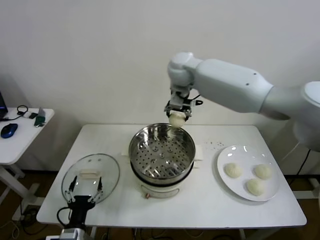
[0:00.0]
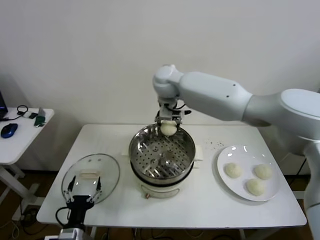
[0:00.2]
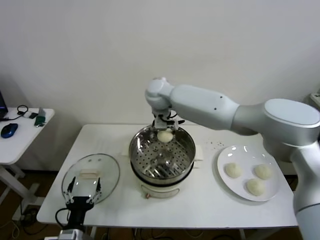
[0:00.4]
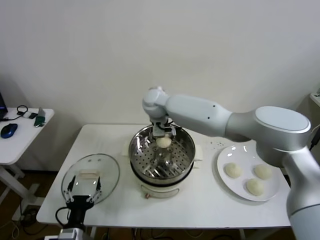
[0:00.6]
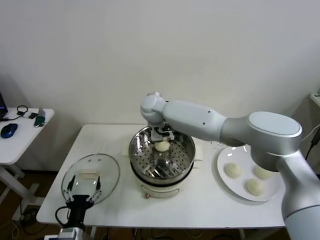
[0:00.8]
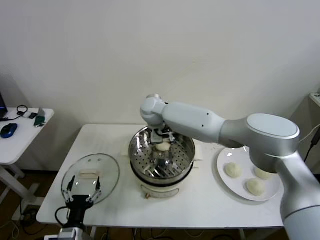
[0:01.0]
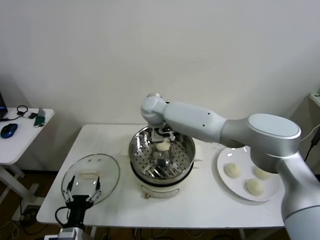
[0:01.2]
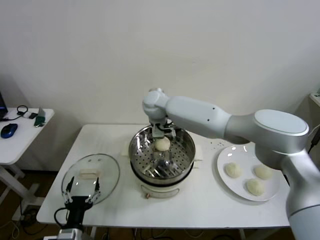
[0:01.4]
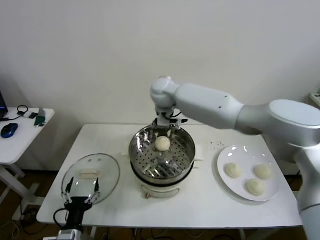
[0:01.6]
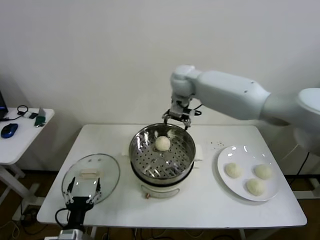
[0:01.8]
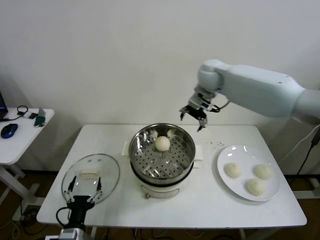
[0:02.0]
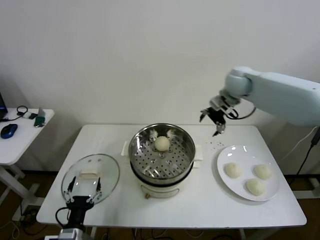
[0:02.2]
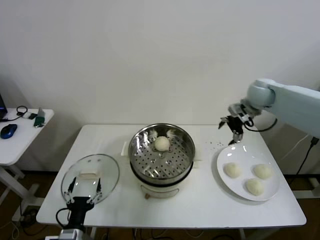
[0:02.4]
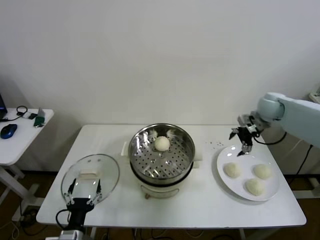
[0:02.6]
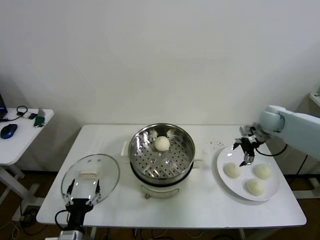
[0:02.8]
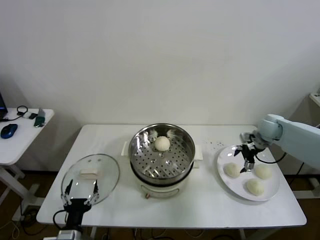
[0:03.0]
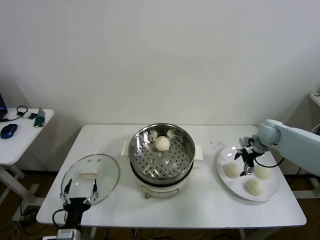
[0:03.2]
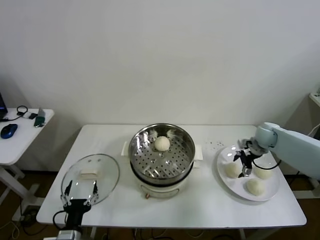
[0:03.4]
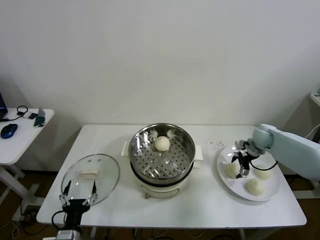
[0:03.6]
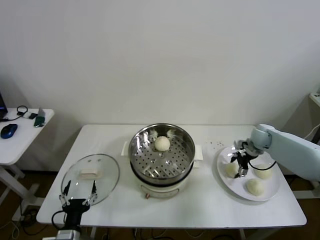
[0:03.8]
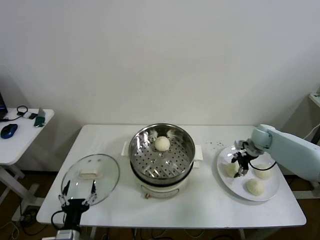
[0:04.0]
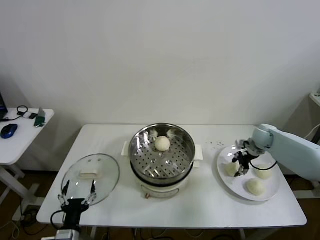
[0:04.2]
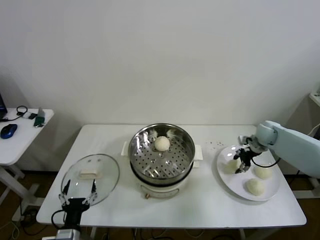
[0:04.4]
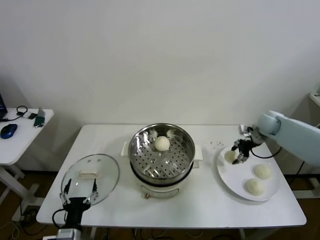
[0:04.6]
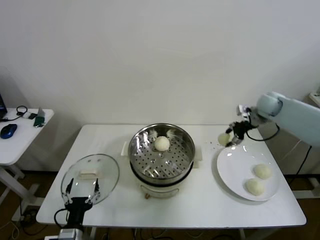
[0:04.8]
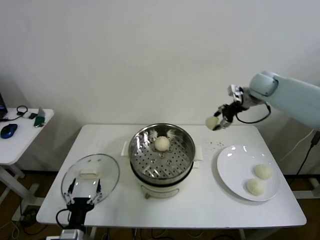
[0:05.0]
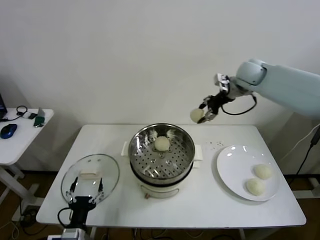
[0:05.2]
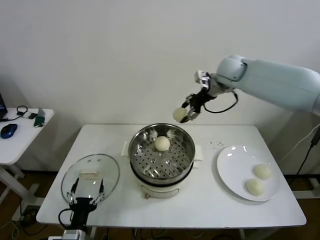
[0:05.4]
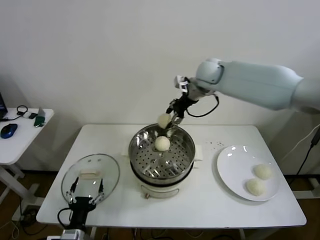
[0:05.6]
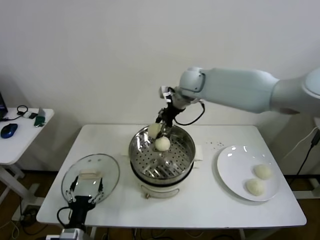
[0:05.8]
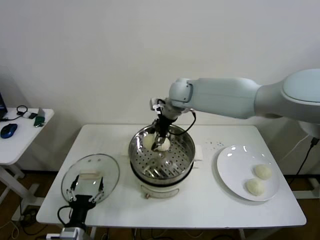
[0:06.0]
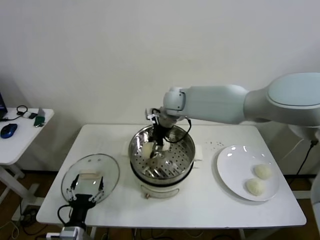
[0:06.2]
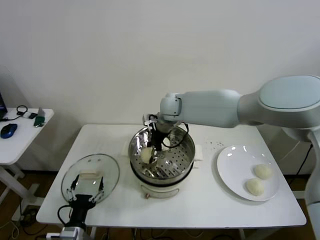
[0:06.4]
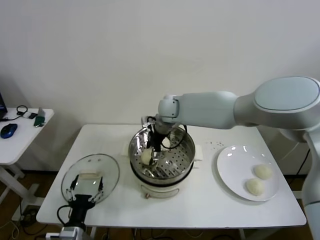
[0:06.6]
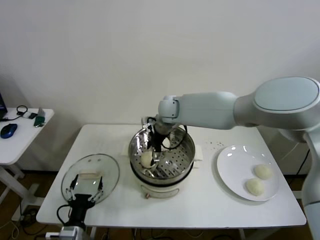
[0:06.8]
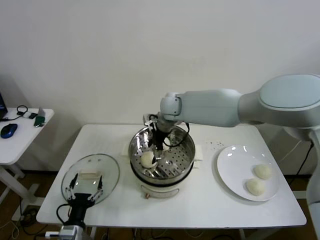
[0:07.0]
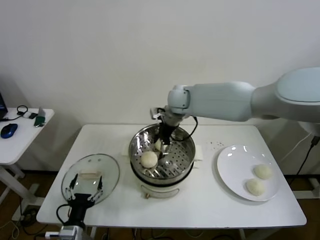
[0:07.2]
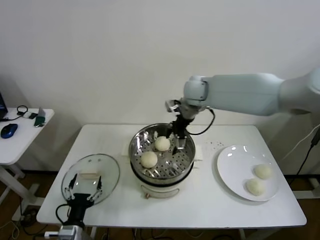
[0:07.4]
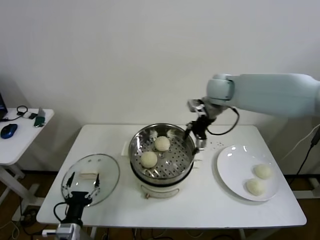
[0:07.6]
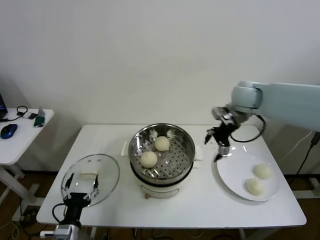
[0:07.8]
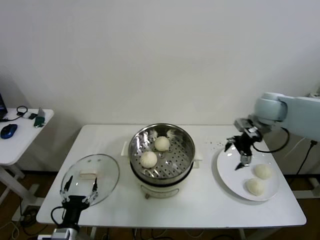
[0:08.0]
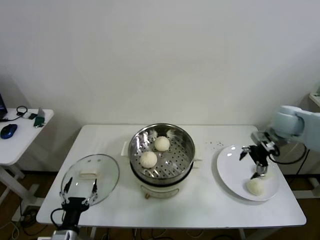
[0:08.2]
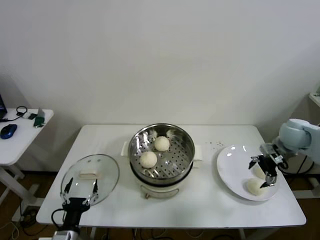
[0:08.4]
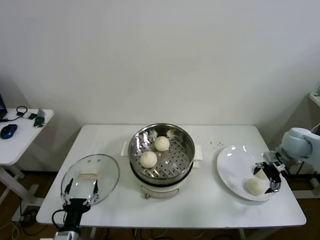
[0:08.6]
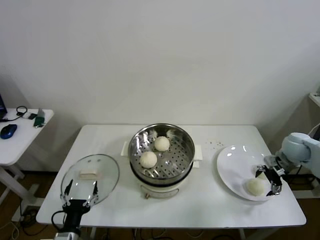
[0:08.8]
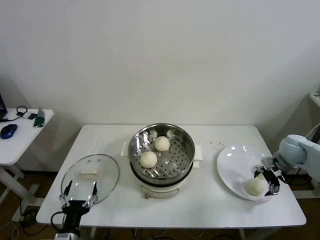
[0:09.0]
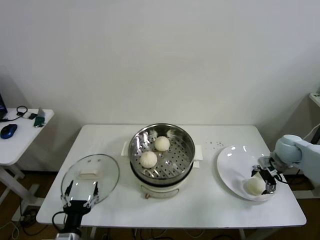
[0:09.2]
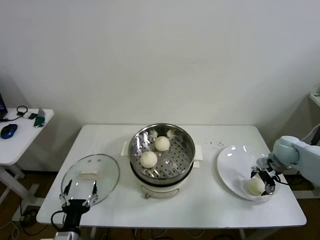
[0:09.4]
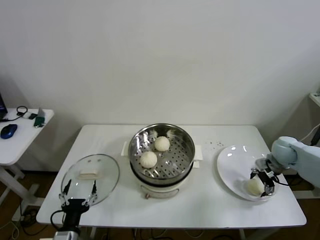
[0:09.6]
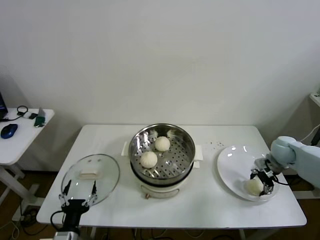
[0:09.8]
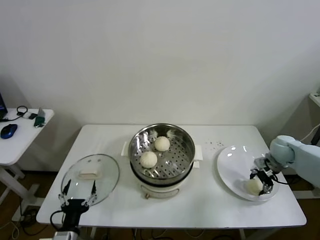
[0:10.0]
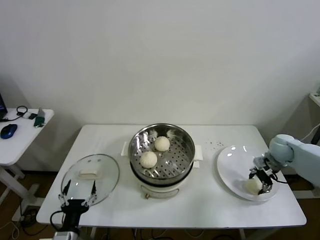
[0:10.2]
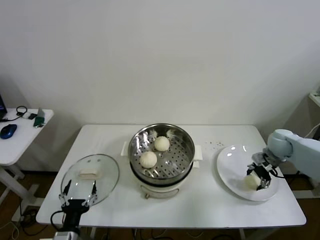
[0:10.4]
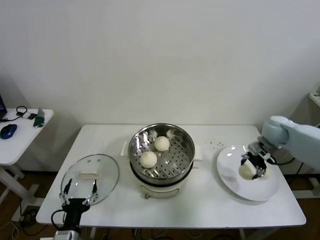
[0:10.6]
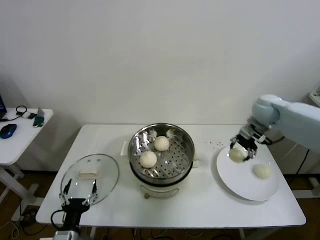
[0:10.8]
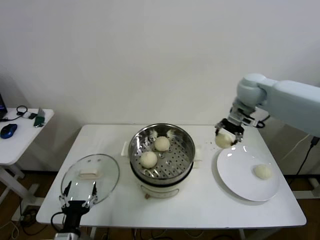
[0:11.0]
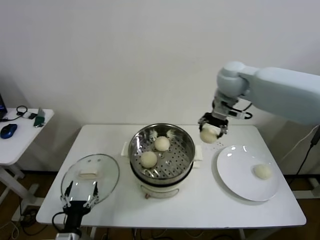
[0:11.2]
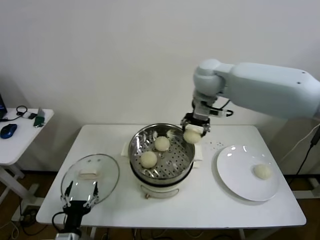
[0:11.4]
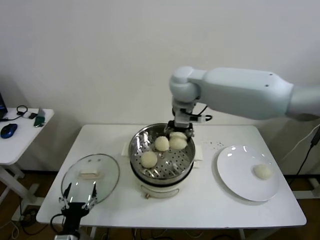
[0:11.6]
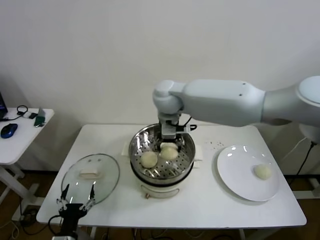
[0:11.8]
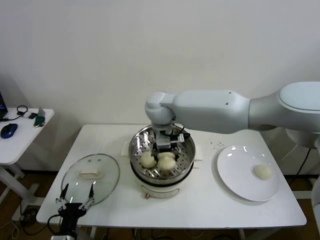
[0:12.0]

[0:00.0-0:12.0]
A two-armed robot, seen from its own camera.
Step, 0:01.2 to 0:04.2: Grasp the baozi in the plate with right gripper.
Step, 0:04.4 to 0:06.8: Place the baozi on the steamer with right gripper.
Step, 0:07.0 to 0:10.2: Grasp the baozi in the plate with right gripper.
0:00.0 to 0:01.6: The right gripper goes approximately 5 cm downward, and opens its fingers.
0:01.6 to 0:03.0: The right gripper shifts roughly 40 cm to the right.
0:03.0 to 0:04.4: The right gripper closes.
0:04.4 to 0:06.0: The right gripper goes approximately 40 cm to the left and upward.
0:06.0 to 0:07.6: The right gripper is displaced to the right by approximately 15 cm, and opens its fingers.
0:07.6 to 0:09.0: The right gripper travels to the right and downward by roughly 35 cm.
0:09.0 to 0:10.4: The right gripper closes.
0:10.4 to 0:12.0: The right gripper travels to the left by roughly 40 cm.

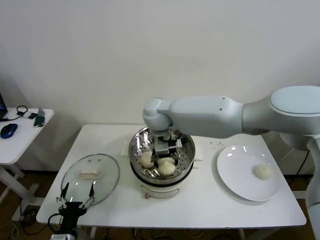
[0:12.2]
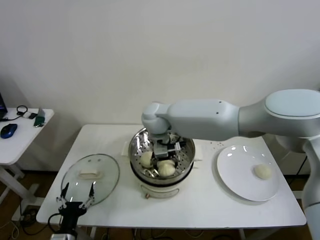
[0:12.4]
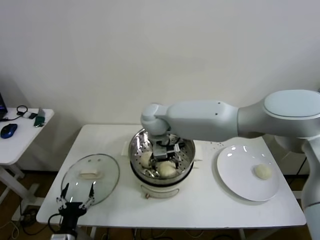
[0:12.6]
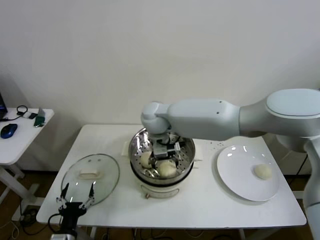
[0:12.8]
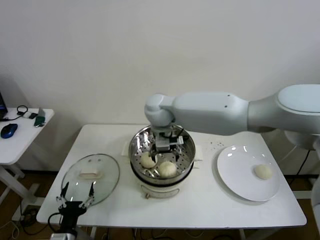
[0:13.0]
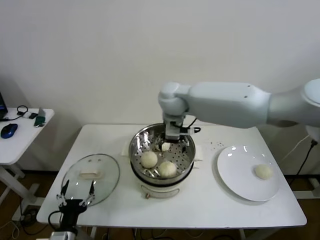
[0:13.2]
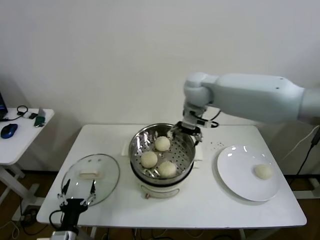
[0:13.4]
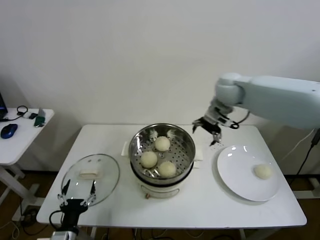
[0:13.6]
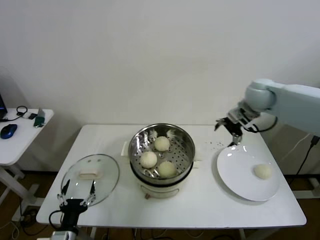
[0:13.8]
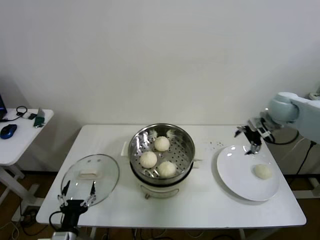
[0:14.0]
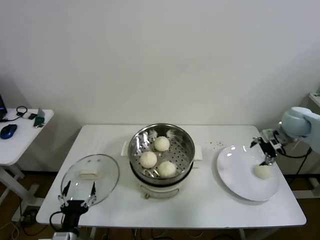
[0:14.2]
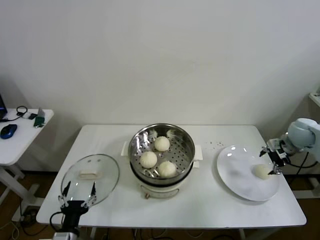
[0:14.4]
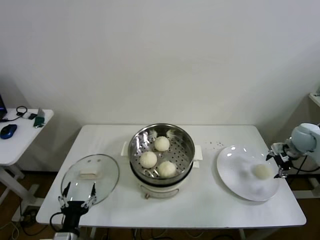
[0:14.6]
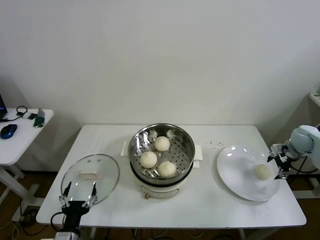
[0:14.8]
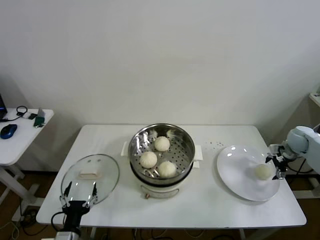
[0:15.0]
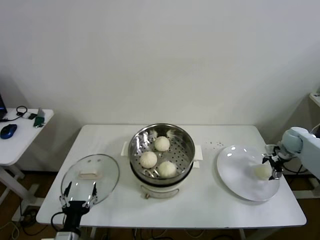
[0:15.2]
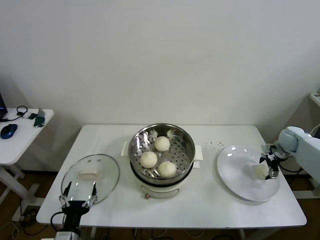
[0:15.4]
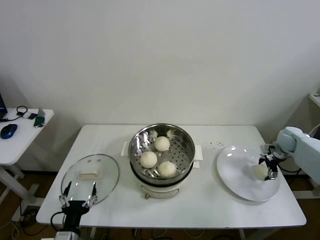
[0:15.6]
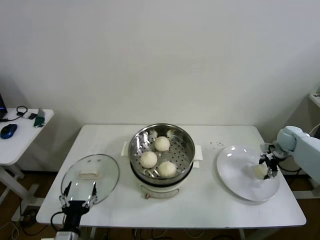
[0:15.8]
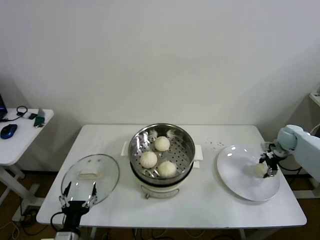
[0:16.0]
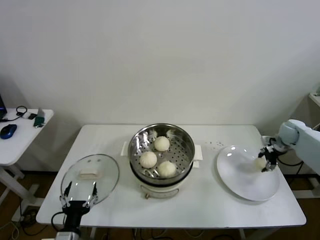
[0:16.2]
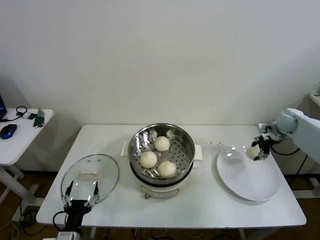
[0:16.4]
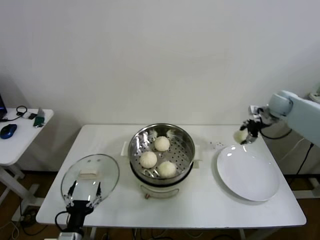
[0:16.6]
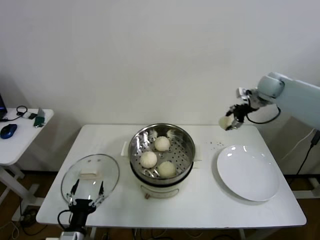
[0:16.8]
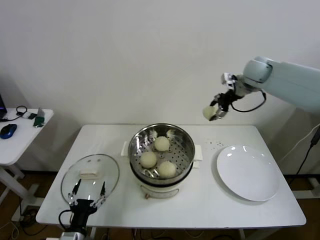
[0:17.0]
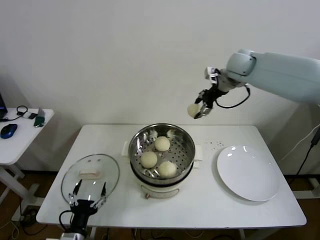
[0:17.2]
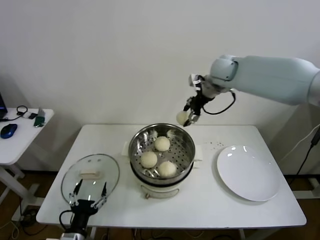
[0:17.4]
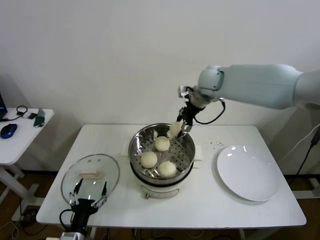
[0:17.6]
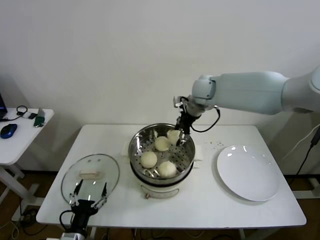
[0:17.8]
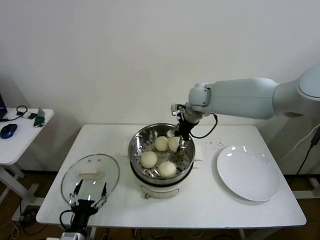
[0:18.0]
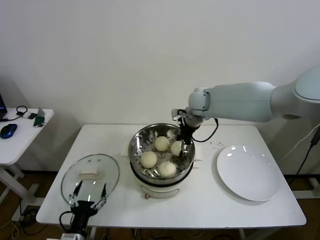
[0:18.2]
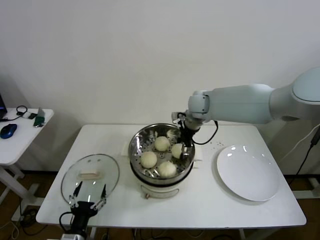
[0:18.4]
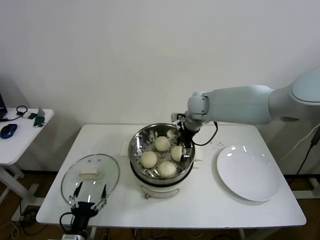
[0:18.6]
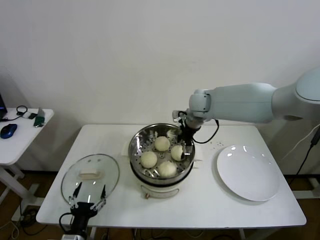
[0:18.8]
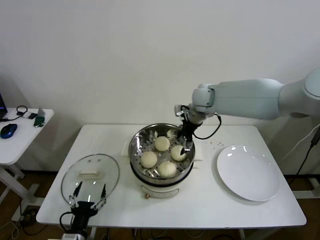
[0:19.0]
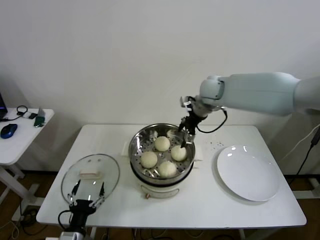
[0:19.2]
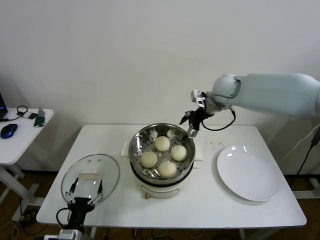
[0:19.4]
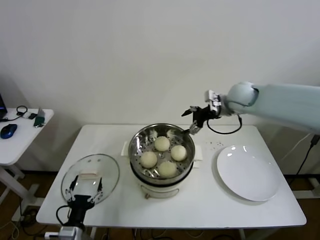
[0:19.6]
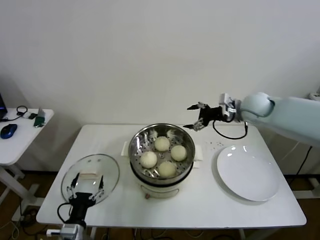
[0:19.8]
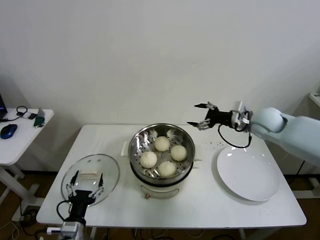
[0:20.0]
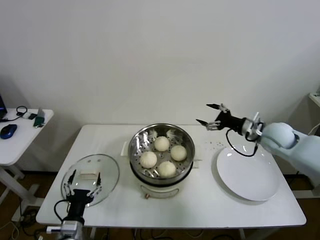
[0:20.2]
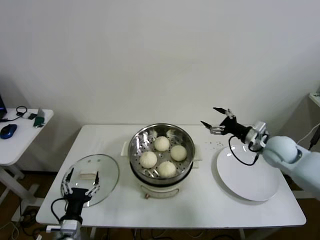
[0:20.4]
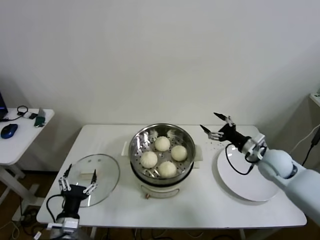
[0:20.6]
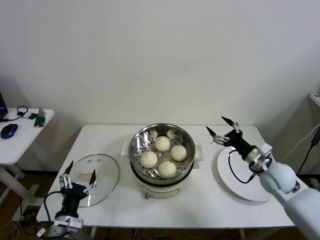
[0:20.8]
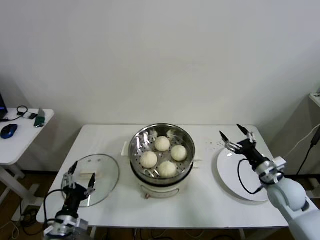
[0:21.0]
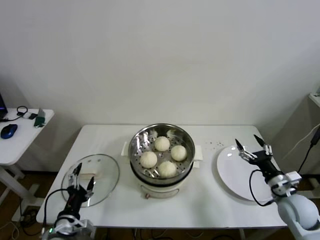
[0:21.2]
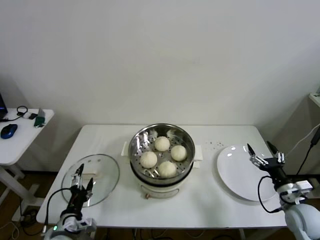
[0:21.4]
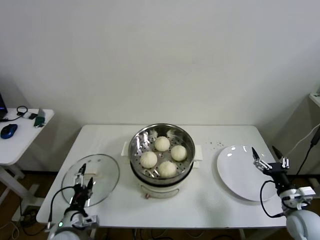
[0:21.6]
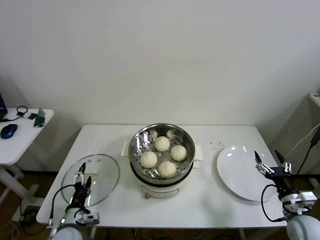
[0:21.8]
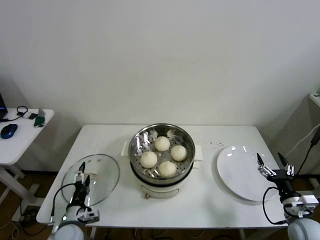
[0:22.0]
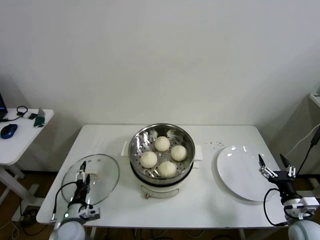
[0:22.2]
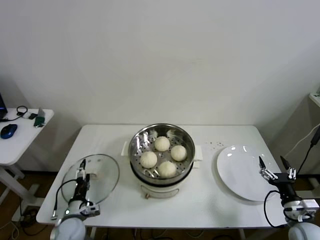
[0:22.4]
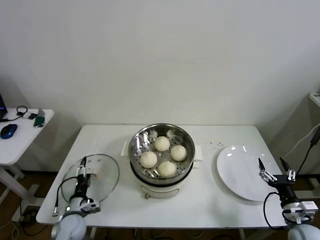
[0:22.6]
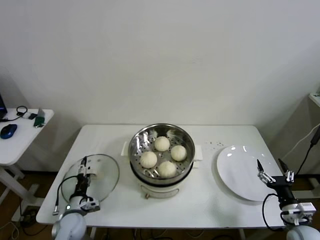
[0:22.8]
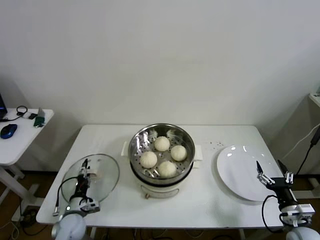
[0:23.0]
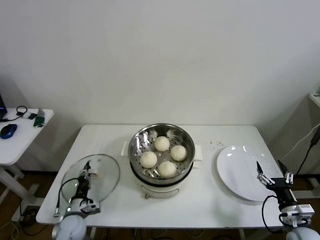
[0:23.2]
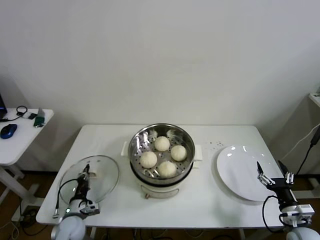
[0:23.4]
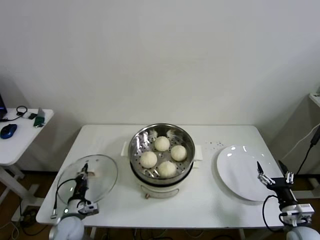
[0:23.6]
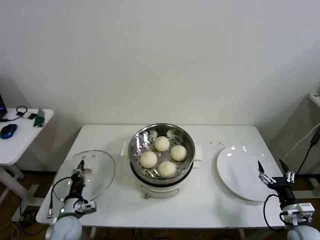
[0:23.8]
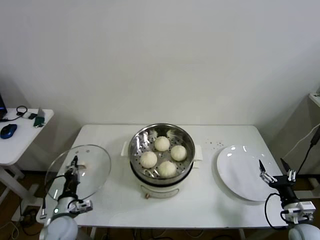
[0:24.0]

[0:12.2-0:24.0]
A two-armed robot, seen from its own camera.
Step, 0:12.8 to 0:15.8: Grasp the baozi in the plate with right gripper.
Step, 0:16.0 to 0:18.6: Place the baozi on the steamer with right gripper.
Step, 0:18.8 to 0:23.4: Grasp the pot lid with left gripper.
0:12.2 to 0:13.6: The right gripper travels to the right by about 25 cm, and opens up.
0:13.6 to 0:15.2: The right gripper moves to the right and downward, approximately 35 cm.
0:15.2 to 0:16.6: The right gripper moves upward, to the left and forward, approximately 15 cm, and closes.
0:16.6 to 0:18.2: The right gripper heads to the left, covering some 30 cm.
0:18.2 to 0:19.6: The right gripper shifts some 10 cm to the right, and opens up.
0:19.6 to 0:21.0: The right gripper moves backward, downward and to the right, roughly 35 cm.
0:21.0 to 0:22.6: The right gripper is displaced backward and downward by roughly 15 cm. Meanwhile the left gripper shifts roughly 15 cm downward and forward.
0:22.6 to 0:24.0: The left gripper closes up.
